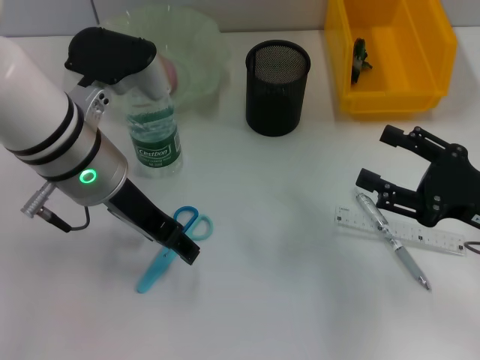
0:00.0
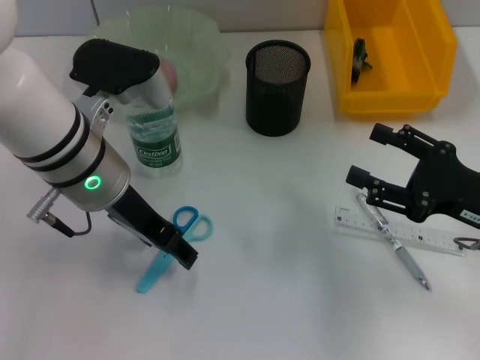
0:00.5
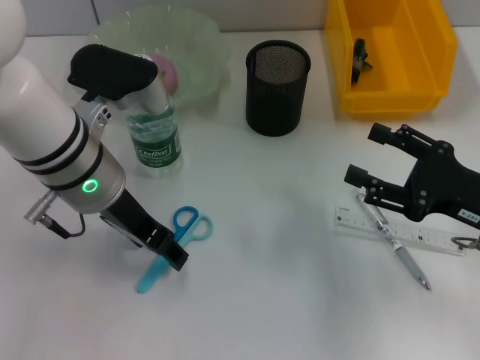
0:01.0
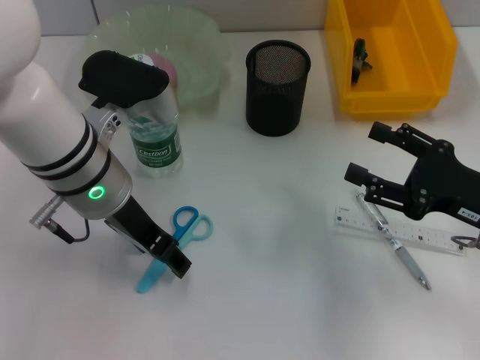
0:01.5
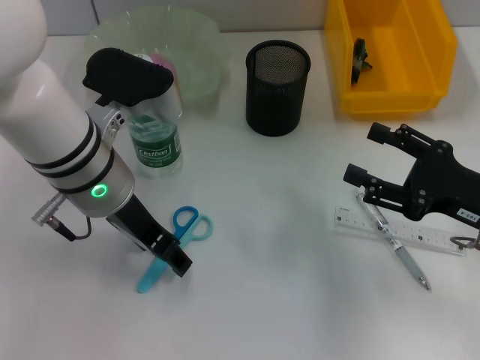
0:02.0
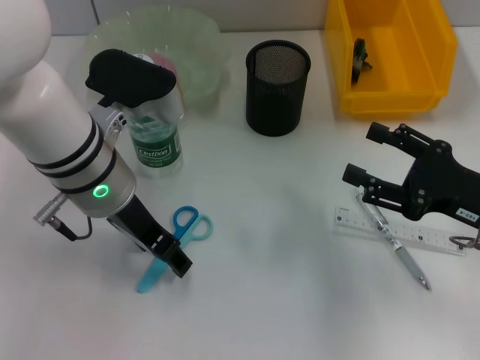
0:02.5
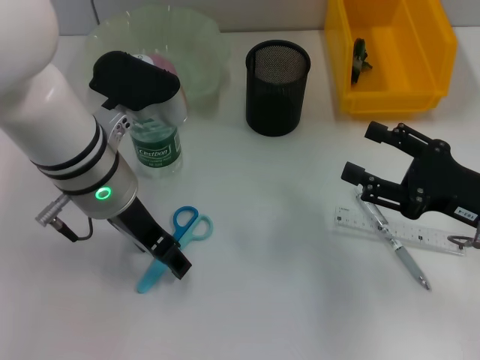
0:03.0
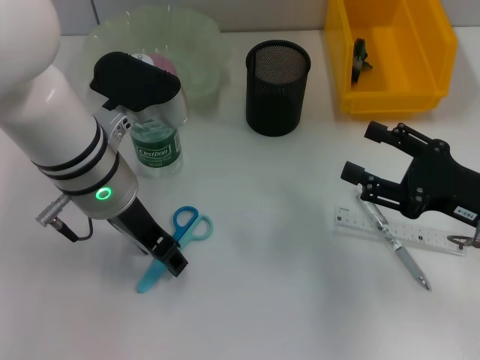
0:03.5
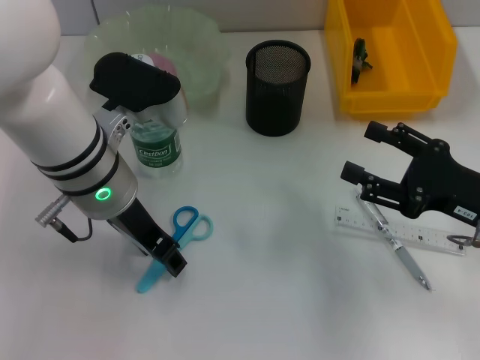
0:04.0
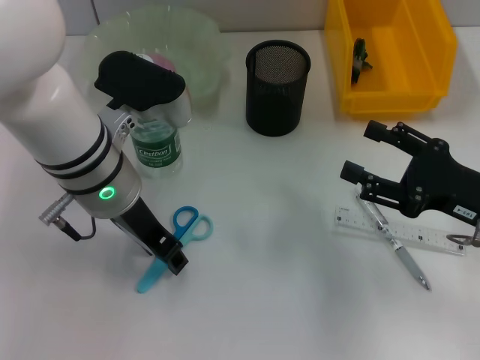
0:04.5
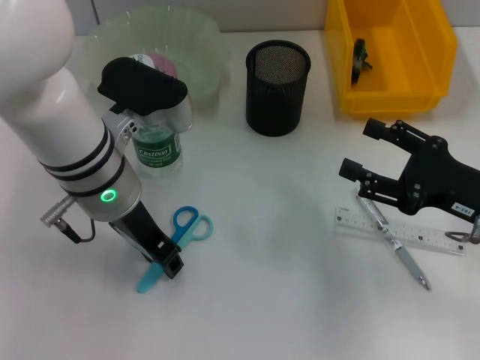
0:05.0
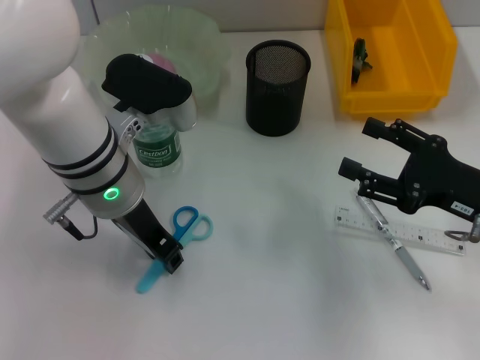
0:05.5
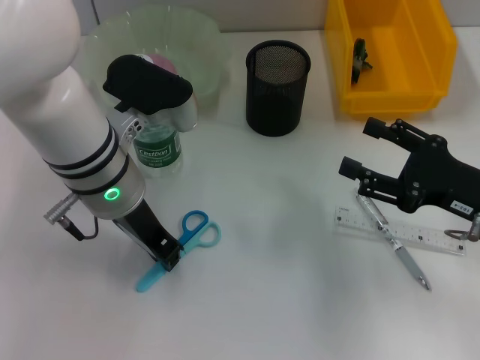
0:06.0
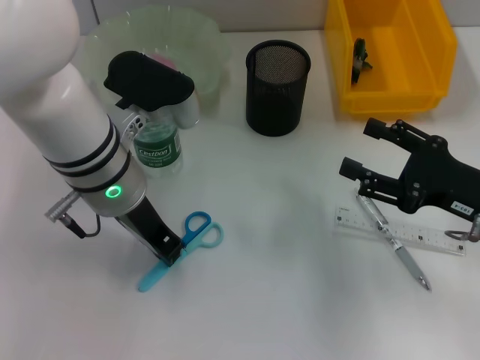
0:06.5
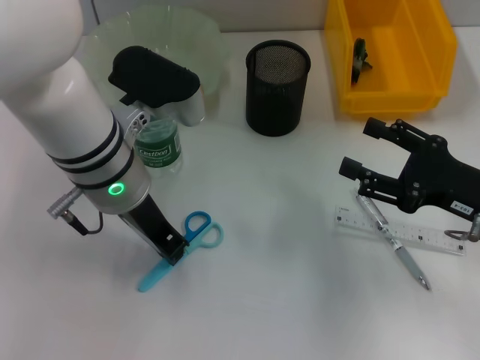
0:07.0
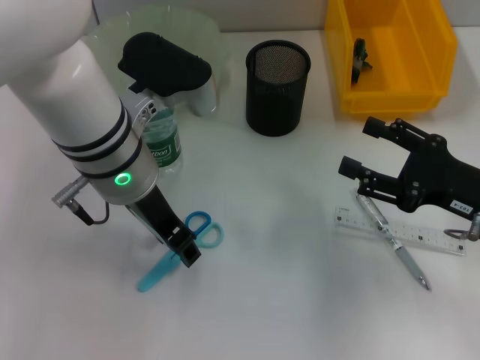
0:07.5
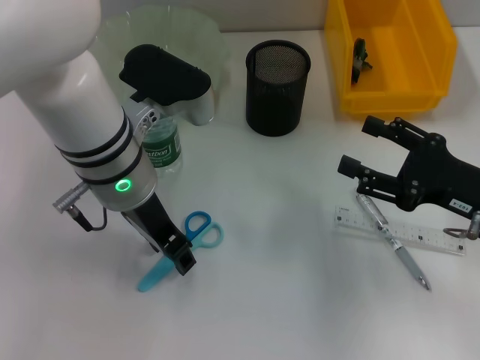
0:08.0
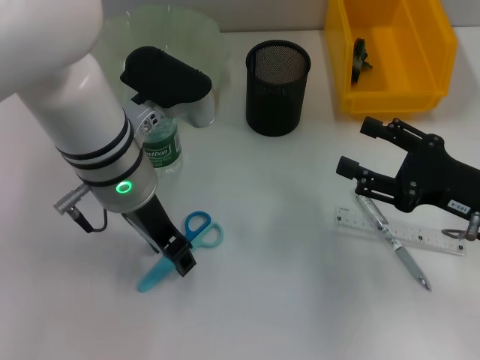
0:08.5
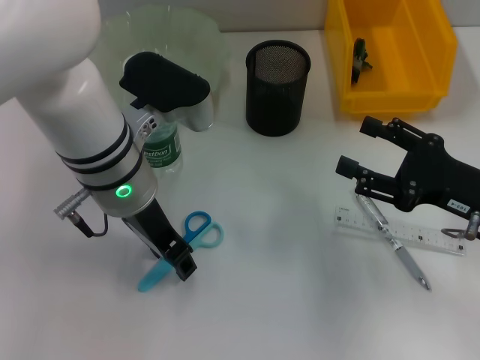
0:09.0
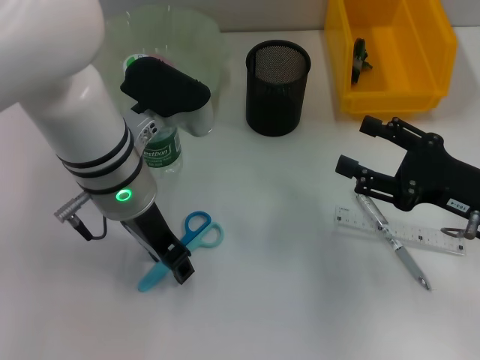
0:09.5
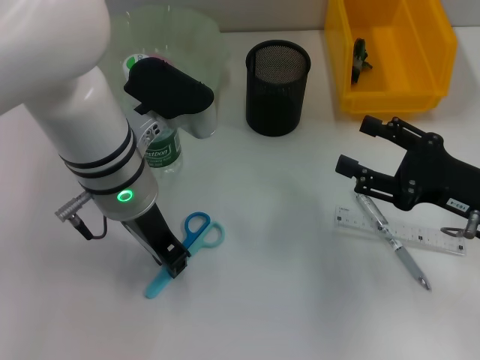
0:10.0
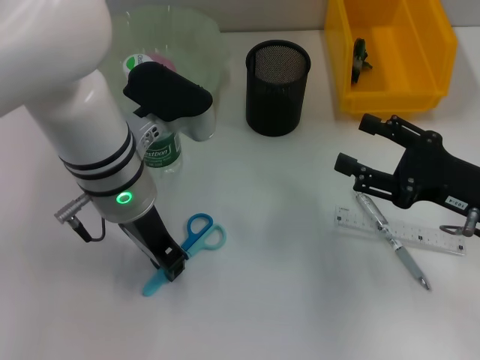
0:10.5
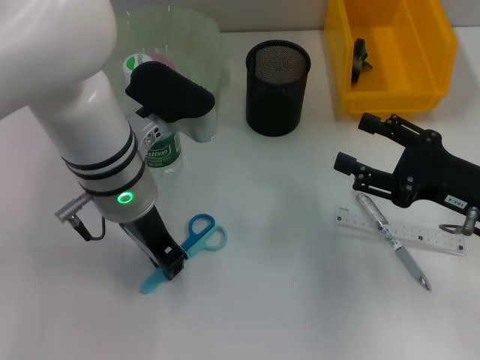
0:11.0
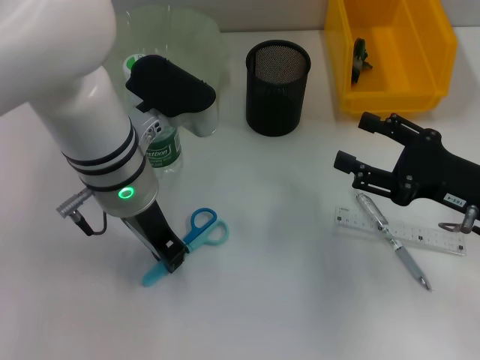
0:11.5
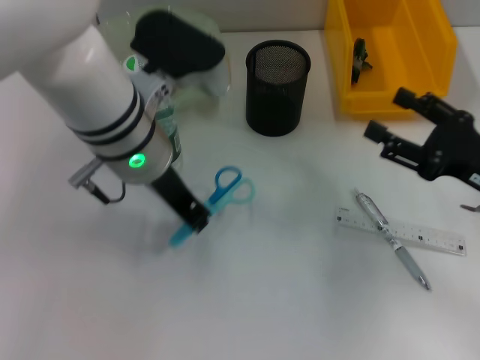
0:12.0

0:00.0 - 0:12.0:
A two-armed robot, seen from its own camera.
Step, 0:00.0 - 0:10.5: Grab the blue scissors with the left hand.
0:00.0 - 0:02.0: The grippers stay close to where they were, moving slightly.
0:02.0 - 0:04.0: Both grippers stay about where they are.
0:04.0 - 0:06.0: The left gripper closes its fingers.
0:06.0 - 0:08.0: The left gripper opens up.
0:08.0 - 0:10.0: Both grippers stay put.

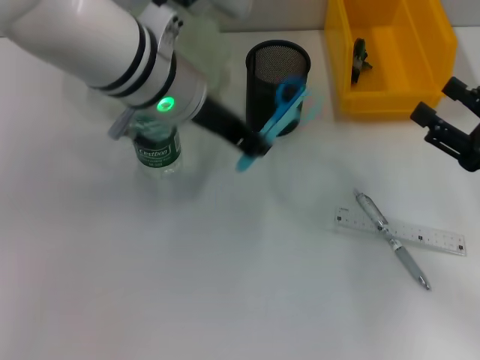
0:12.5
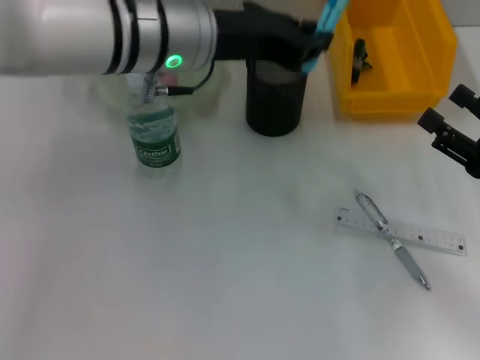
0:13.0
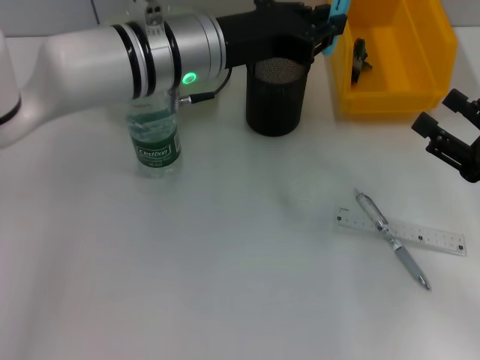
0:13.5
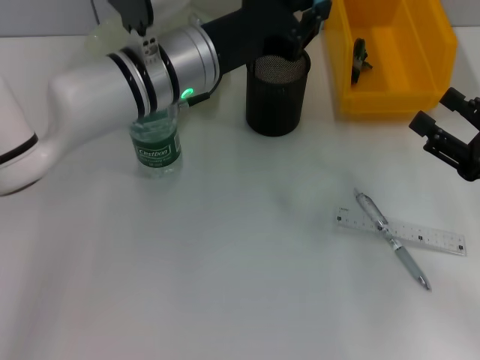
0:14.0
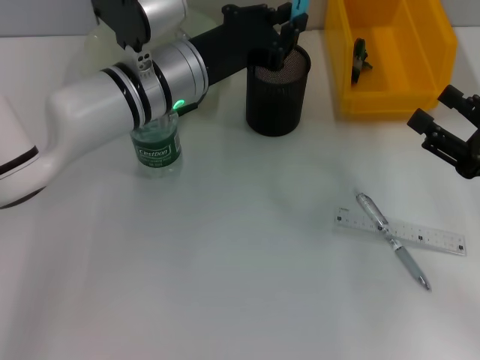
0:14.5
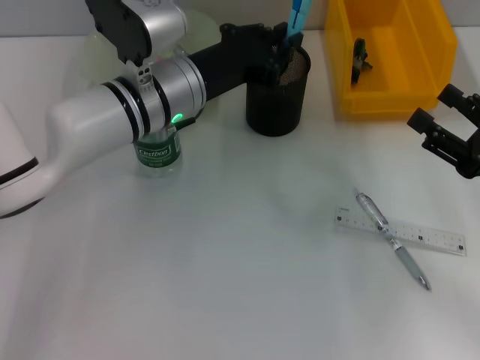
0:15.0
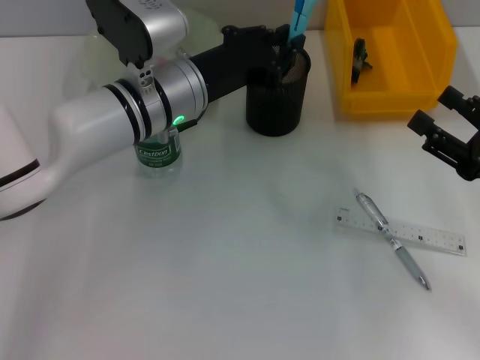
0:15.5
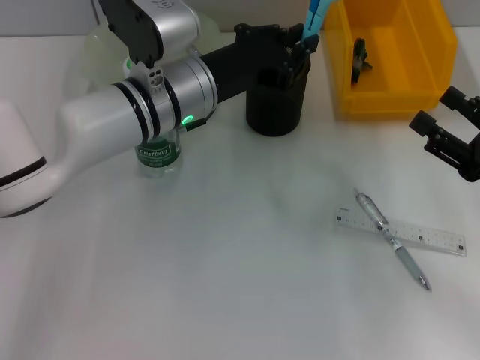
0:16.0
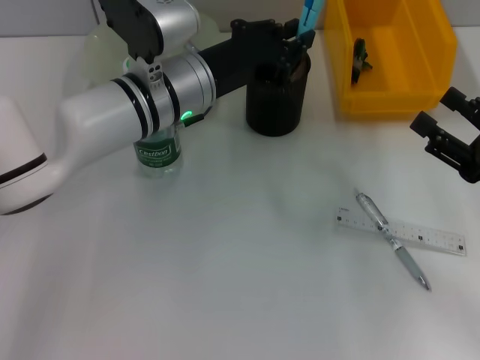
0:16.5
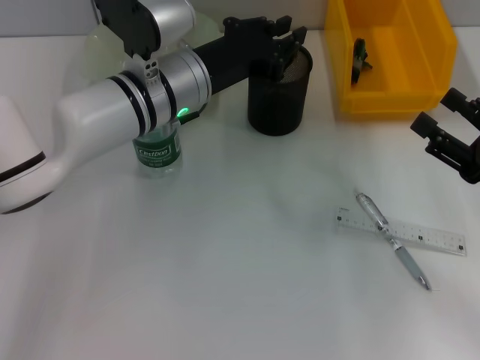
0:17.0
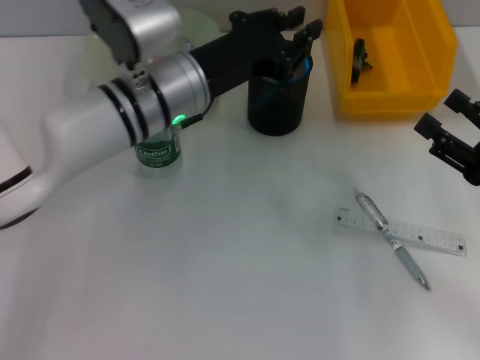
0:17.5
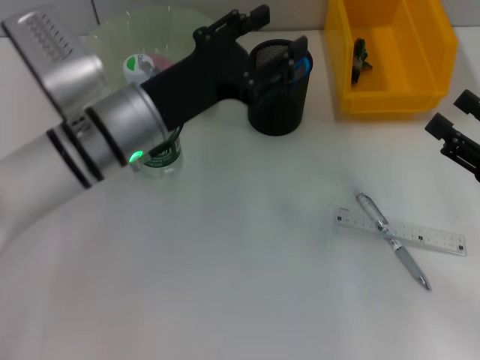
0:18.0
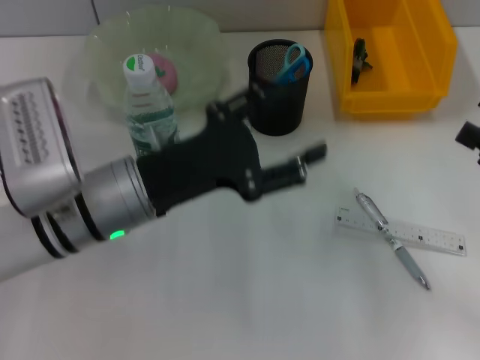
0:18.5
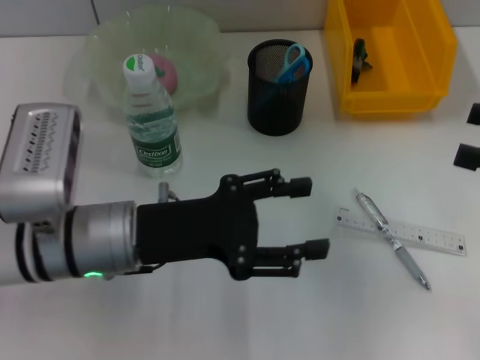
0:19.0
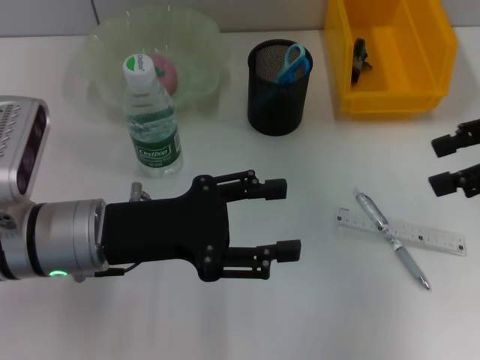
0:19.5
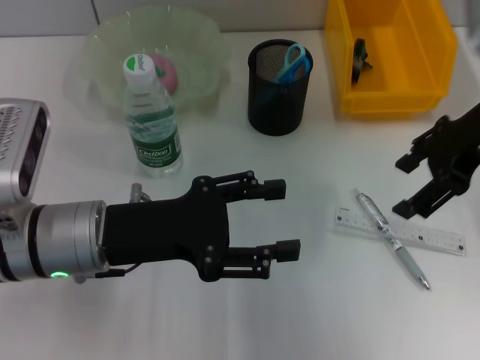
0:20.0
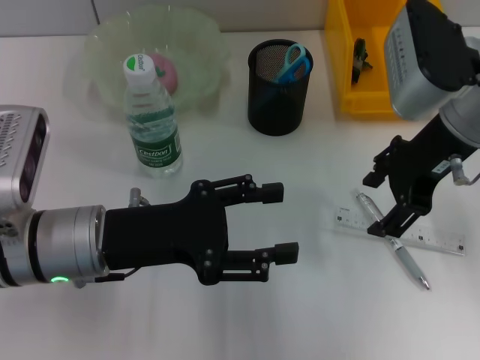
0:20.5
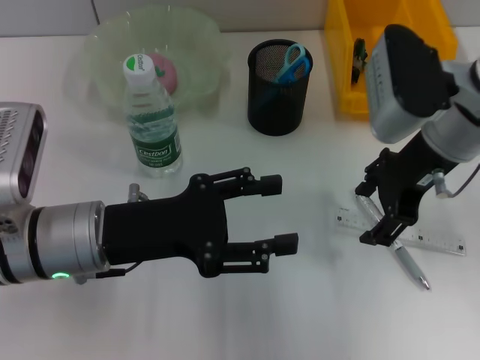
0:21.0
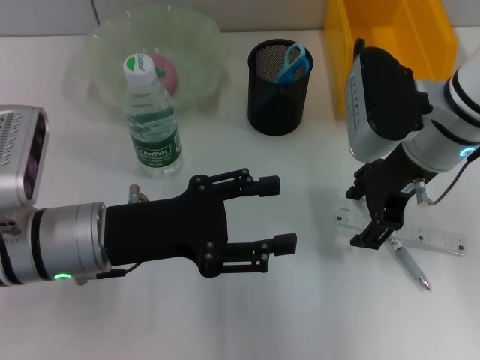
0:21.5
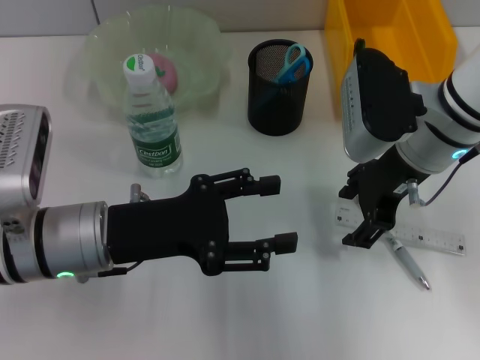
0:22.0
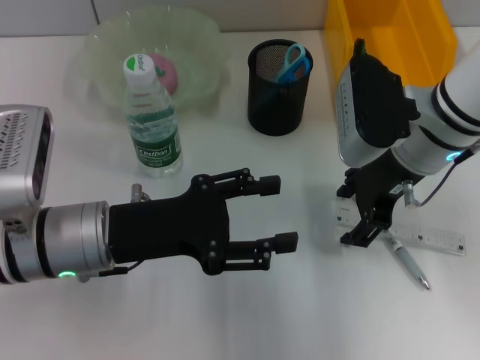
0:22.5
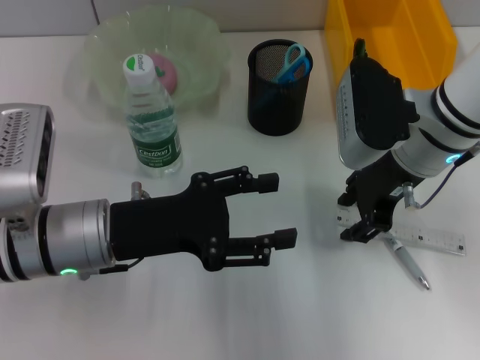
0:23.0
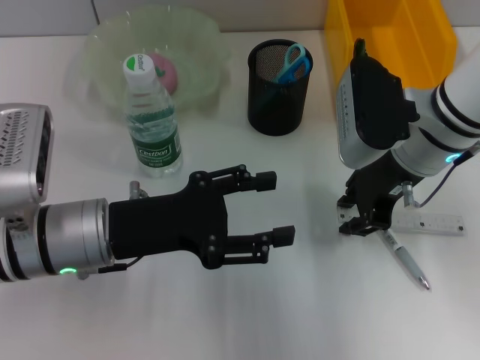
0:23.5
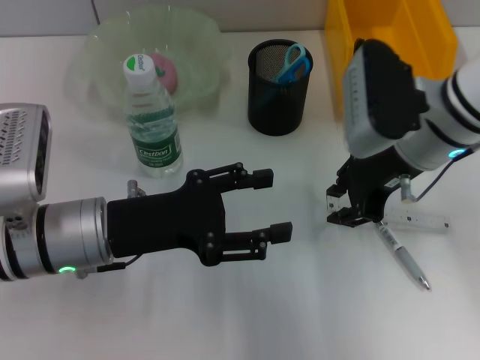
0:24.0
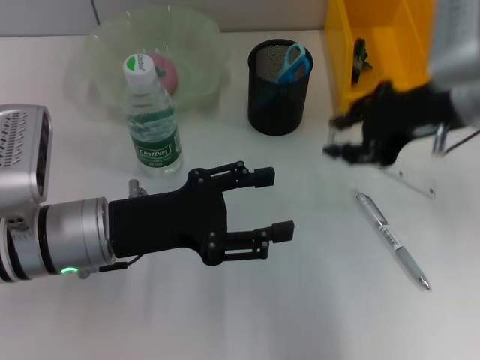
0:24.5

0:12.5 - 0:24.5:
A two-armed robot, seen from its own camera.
Step, 0:12.5 - 0:17.0: Place the blue scissors into the pen holder with the left hand.
Step, 0:17.5 - 0:23.5: Grab the ruler with the right hand.
0:12.5 - 0:14.5: The left gripper goes about 10 cm downward.
0:14.5 - 0:16.5: The two grippers keep their place.
0:16.5 - 0:18.5: The right gripper changes place by about 5 cm; the left gripper goes roughly 10 cm backward and to the left, and opens up.
0:18.5 - 0:20.5: The right gripper moves to the left, forward and upward, approximately 20 cm.
0:20.5 - 0:22.5: The right gripper goes about 5 cm downward.
0:22.5 - 0:24.5: The right gripper travels upward by approximately 5 cm, and closes its fingers.

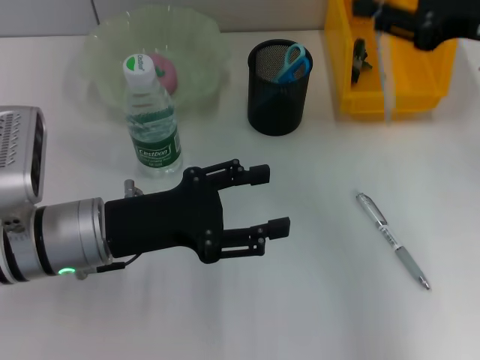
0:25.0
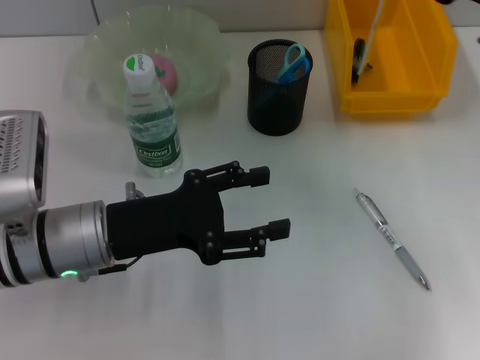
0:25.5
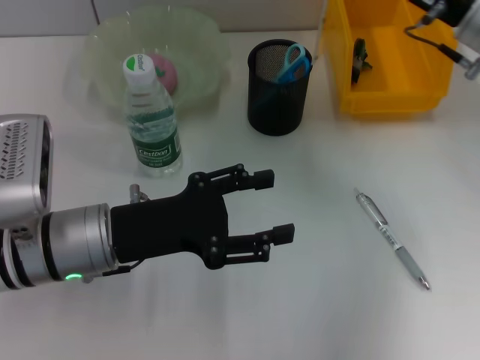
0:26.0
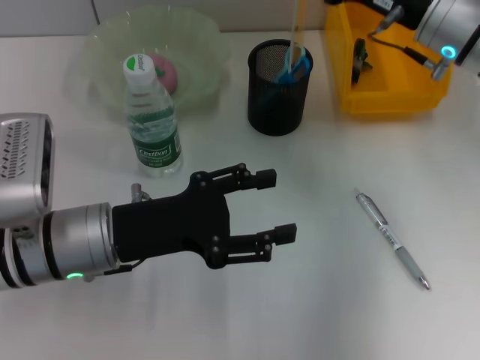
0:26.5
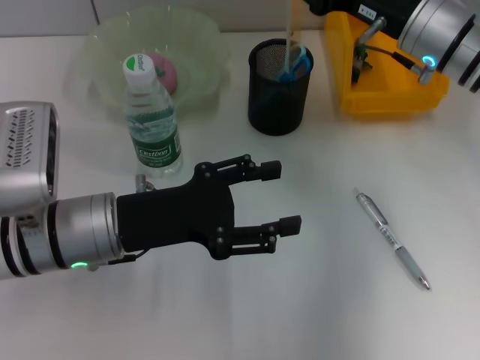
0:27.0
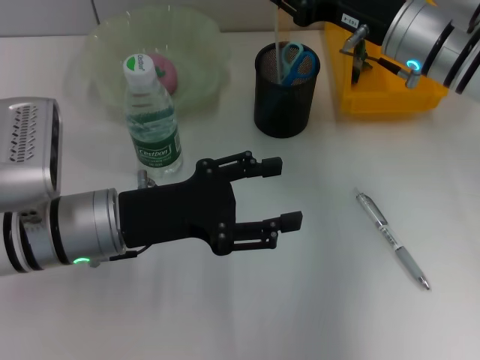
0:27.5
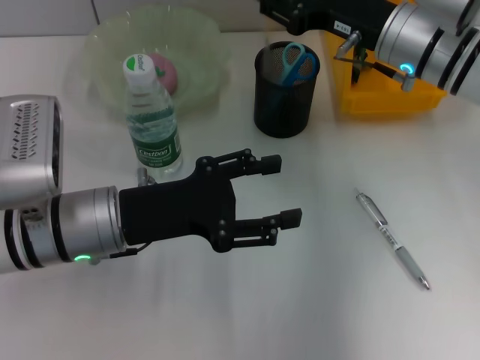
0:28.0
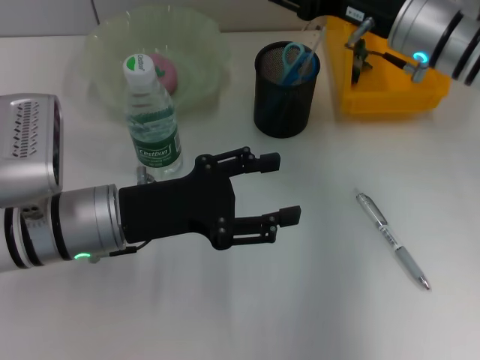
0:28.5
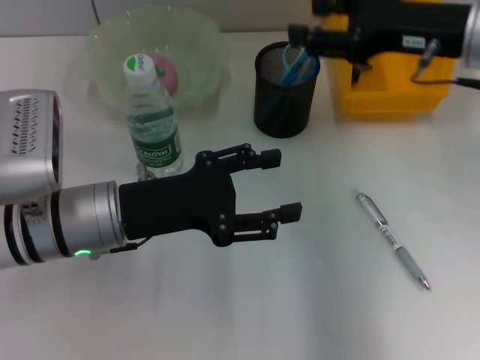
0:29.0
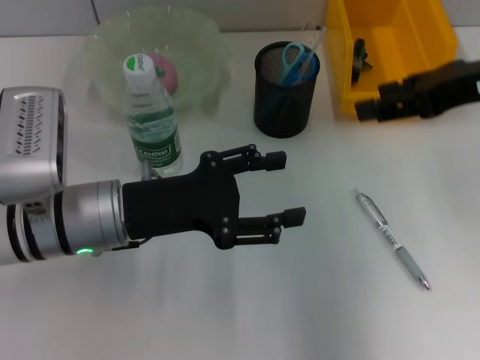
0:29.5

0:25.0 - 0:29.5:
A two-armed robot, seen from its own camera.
Step, 0:25.0 - 0:28.0: Place the ruler into the pen holder with the right hand.
0:25.0 - 0:27.0: The right gripper moves downward, to the left and forward, about 15 cm.
0:27.0 - 0:29.5: The right gripper heads upward, backward and to the right, covering some 15 cm.
